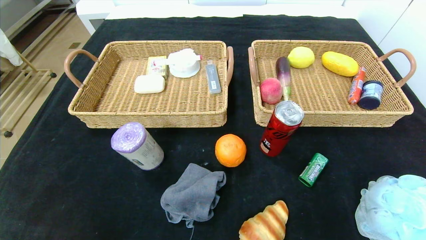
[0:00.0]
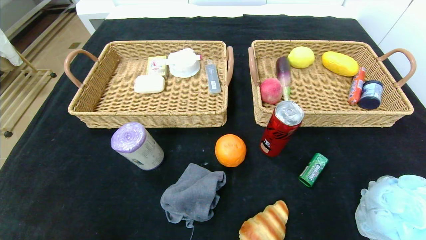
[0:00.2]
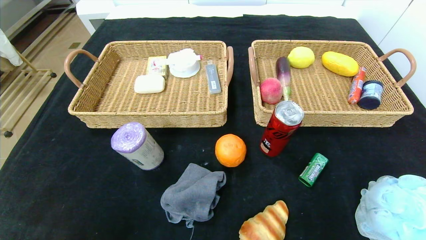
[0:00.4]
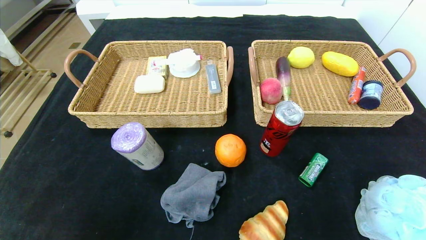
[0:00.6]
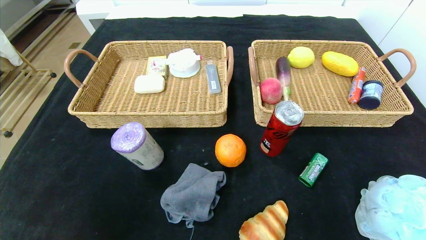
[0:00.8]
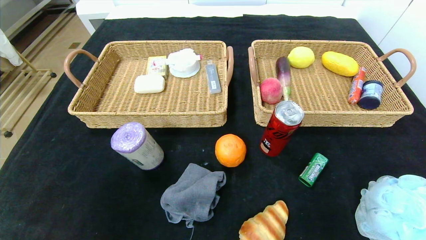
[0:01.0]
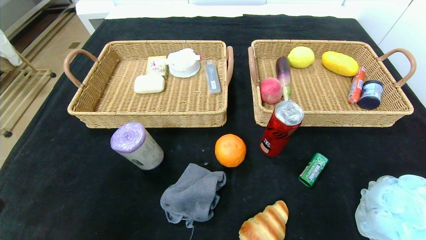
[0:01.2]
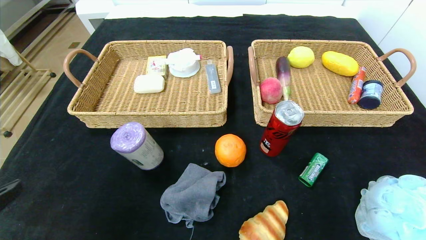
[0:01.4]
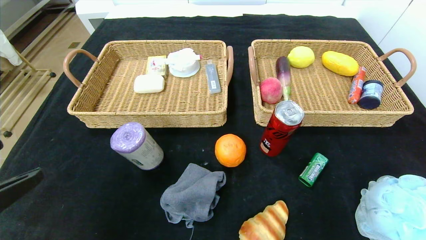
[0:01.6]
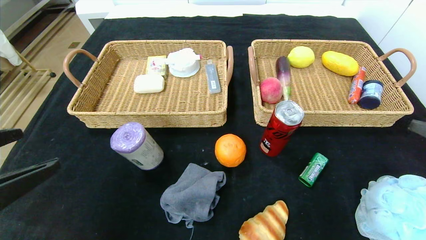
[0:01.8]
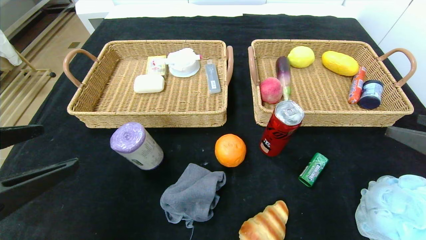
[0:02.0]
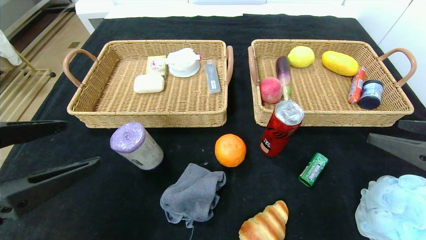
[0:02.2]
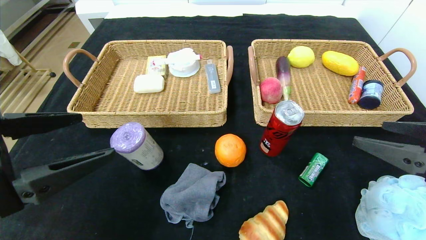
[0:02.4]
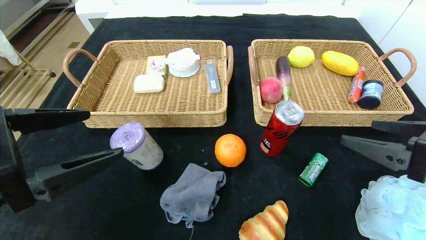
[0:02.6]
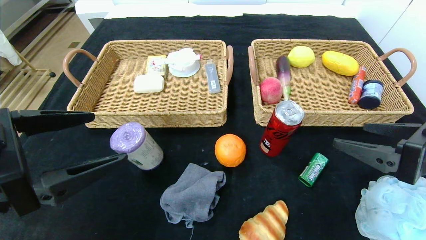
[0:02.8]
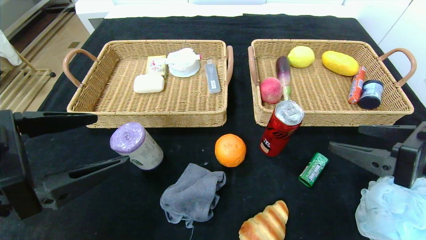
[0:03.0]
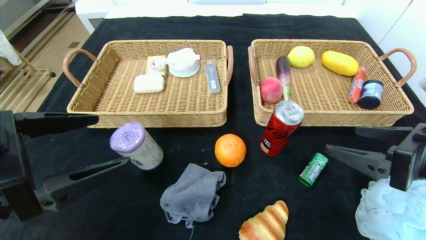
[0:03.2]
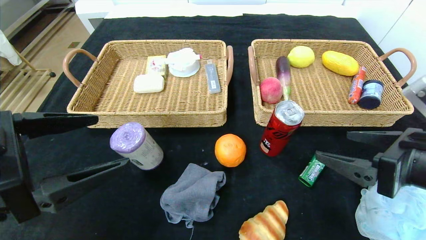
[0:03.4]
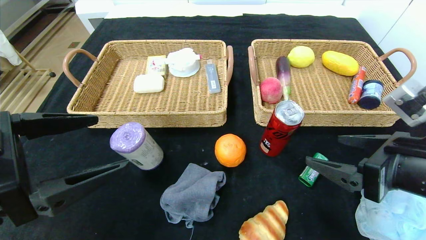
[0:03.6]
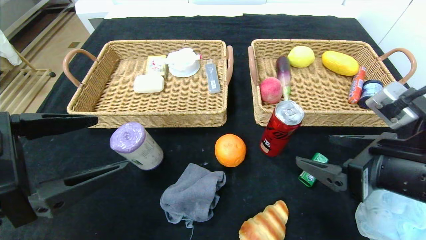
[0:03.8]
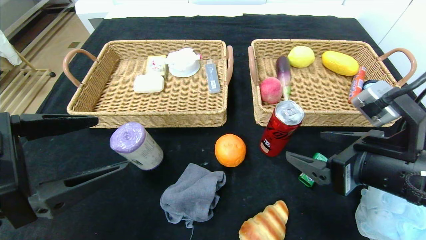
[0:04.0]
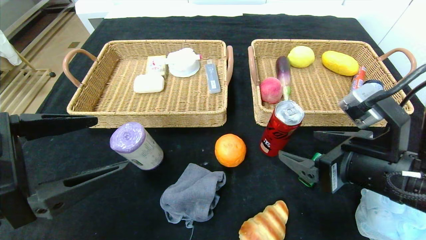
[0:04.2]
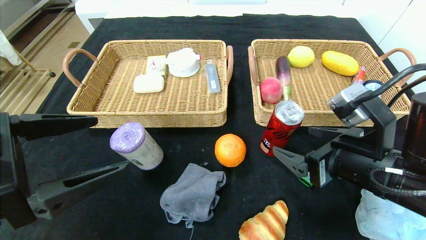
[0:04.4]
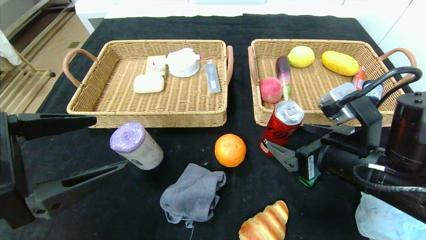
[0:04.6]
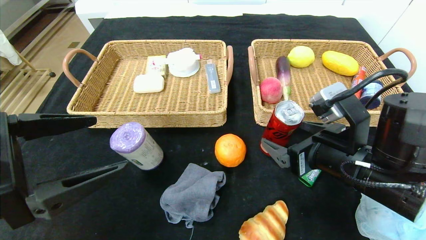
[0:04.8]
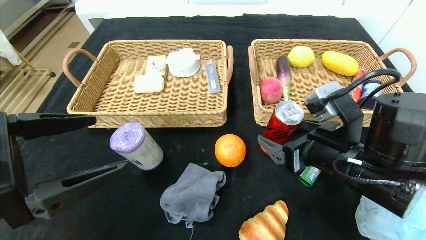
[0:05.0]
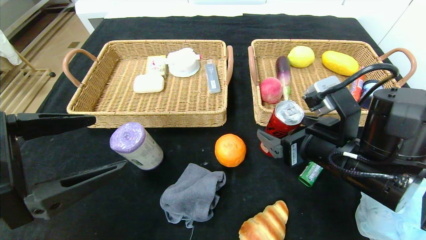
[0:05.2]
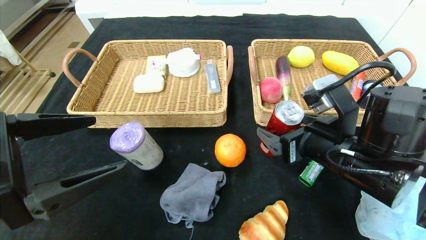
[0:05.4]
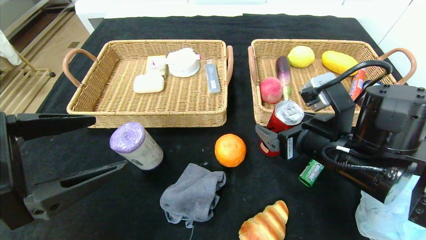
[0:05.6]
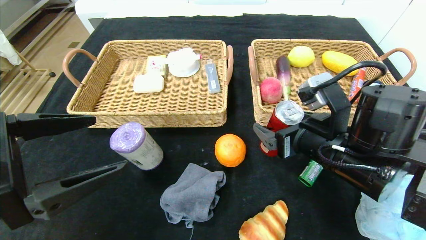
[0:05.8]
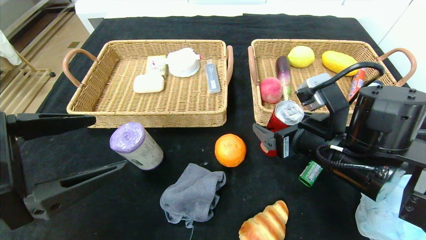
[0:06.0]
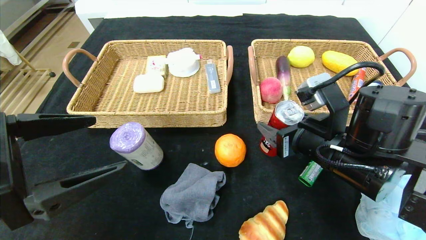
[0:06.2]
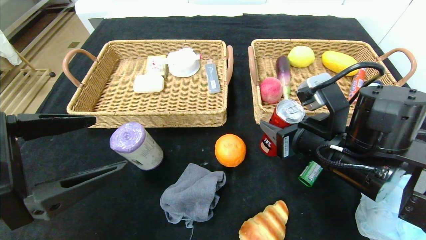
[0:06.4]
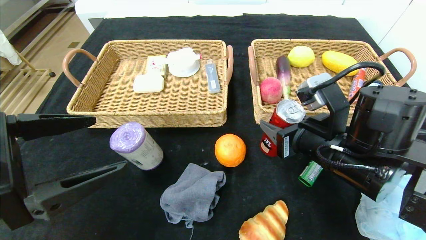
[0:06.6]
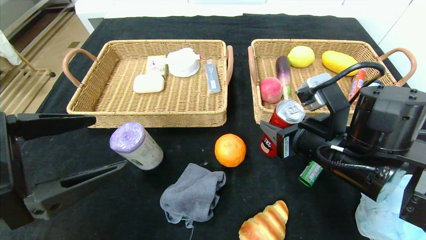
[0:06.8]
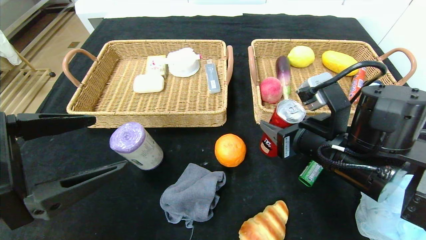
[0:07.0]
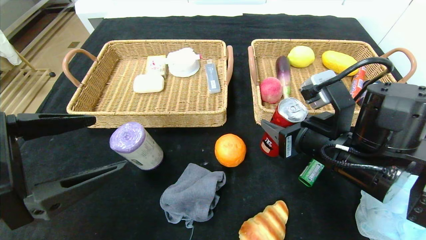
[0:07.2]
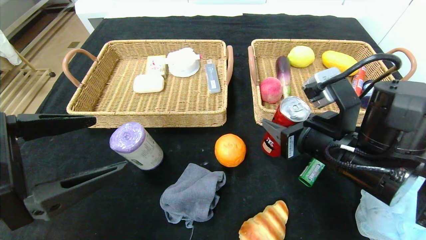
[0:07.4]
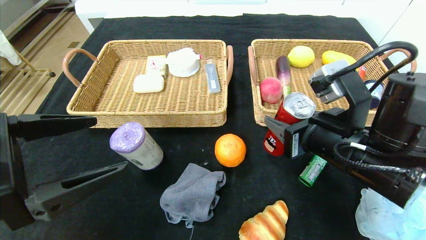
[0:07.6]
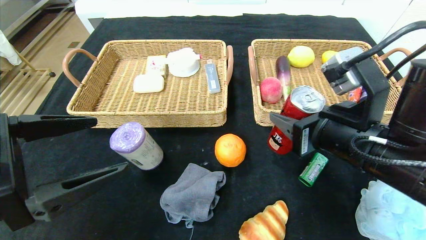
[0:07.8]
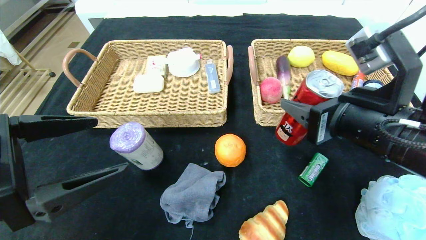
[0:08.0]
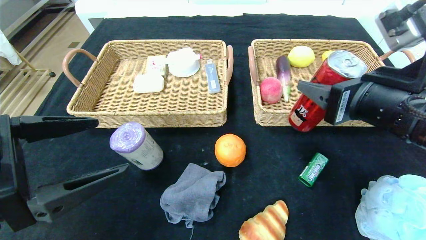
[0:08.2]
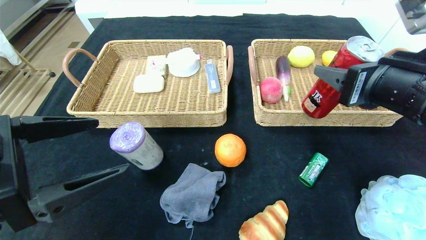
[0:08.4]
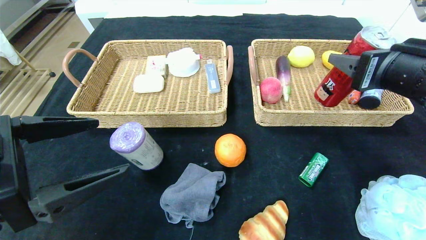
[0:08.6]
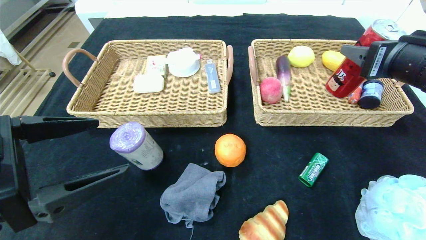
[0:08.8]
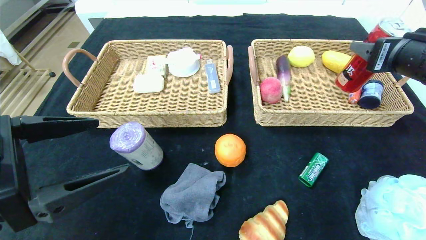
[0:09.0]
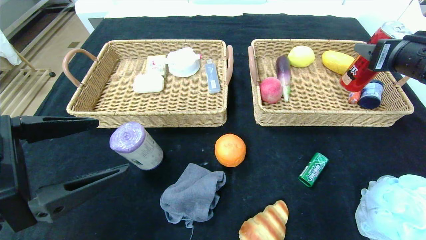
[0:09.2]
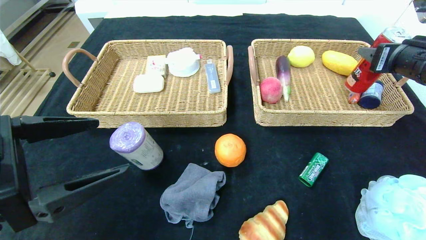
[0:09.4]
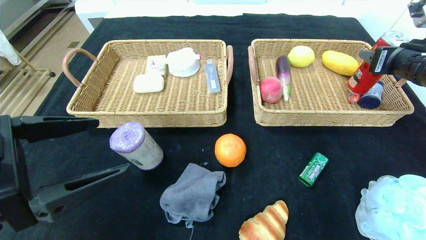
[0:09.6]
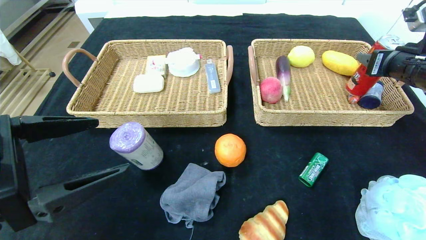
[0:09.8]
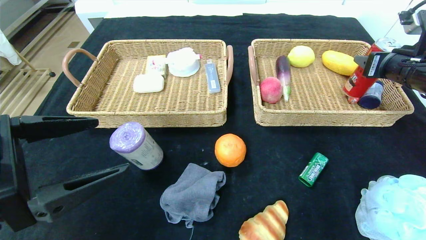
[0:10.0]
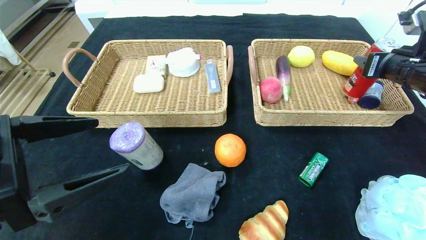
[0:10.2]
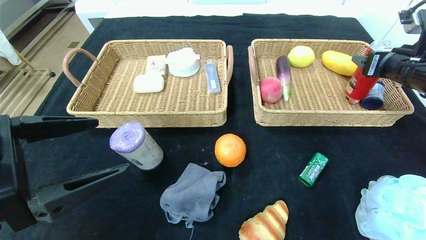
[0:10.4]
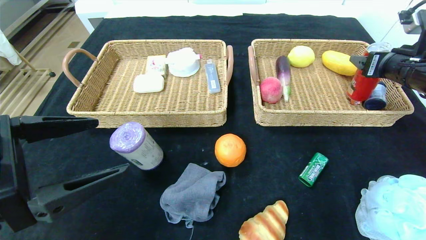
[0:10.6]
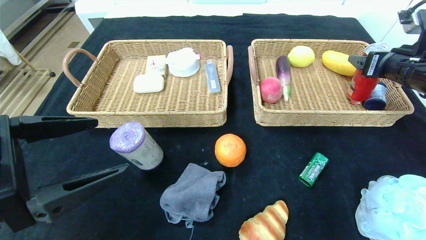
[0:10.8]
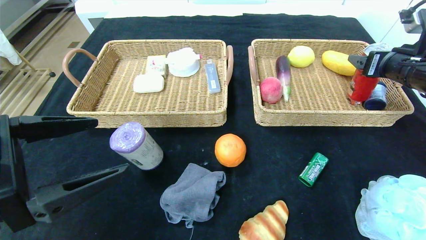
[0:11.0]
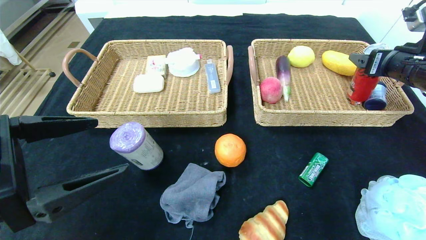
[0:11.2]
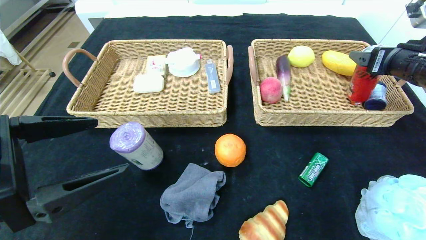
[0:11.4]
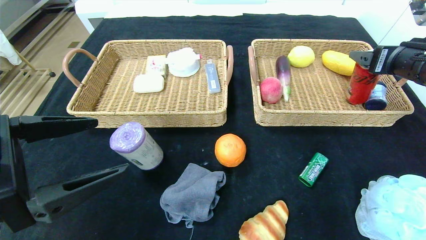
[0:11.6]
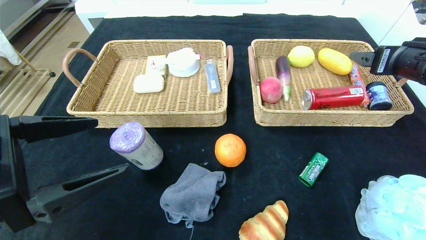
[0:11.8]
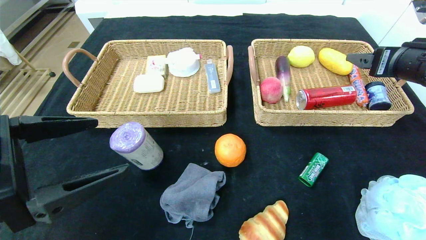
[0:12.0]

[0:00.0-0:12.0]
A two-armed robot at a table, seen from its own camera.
Step, 0:00.0 to 0:11.8: Grasp the canned cola and put it in the right basket.
0:00.0 to 0:01.6: The right gripper moves upward and forward, about 25 cm. Meanwhile the left gripper goes about 20 cm upward.
0:01.6 to 0:03.0: The left gripper moves forward, approximately 5 cm, while the right gripper goes about 10 cm forward and to the left.
0:03.0 to 0:04.4: The right gripper shifts approximately 10 cm to the left.
0:04.4 to 0:06.0: The right gripper ends up about 5 cm from where it was.
0:06.0 to 0:07.6: The right gripper closes.
0:07.6 to 0:09.0: The right gripper is displaced to the right, upward and forward by roughly 15 cm.
0:09.0 to 0:10.4: The right gripper goes some 10 cm forward and to the right.
0:10.4 to 0:12.0: The right gripper moves some 5 cm, and opens.

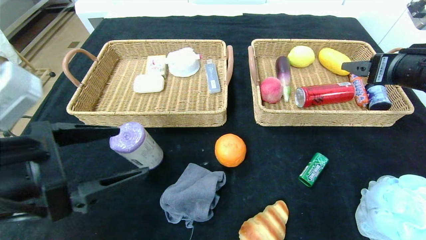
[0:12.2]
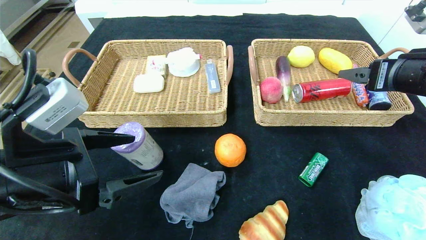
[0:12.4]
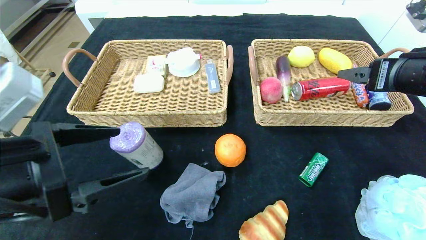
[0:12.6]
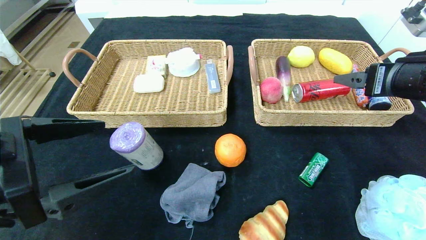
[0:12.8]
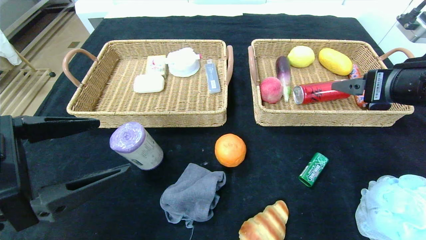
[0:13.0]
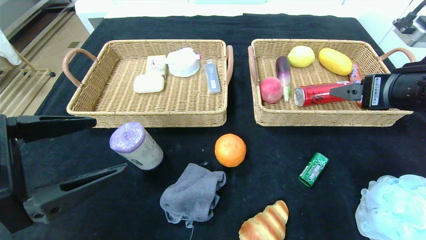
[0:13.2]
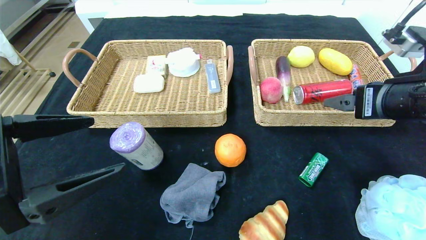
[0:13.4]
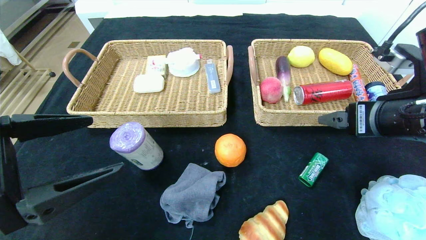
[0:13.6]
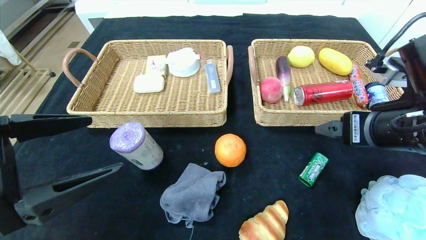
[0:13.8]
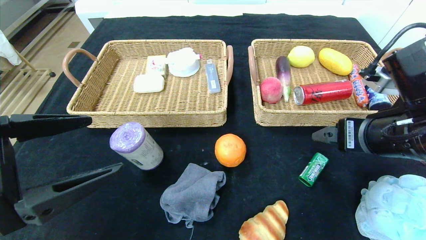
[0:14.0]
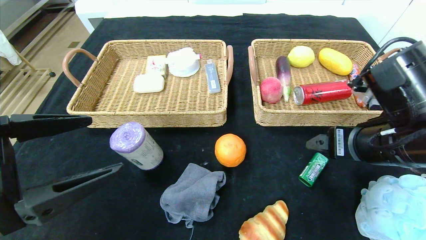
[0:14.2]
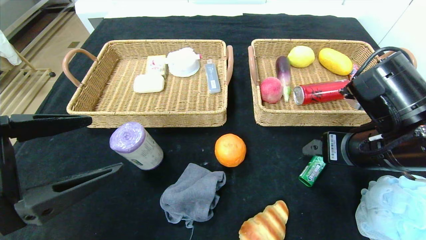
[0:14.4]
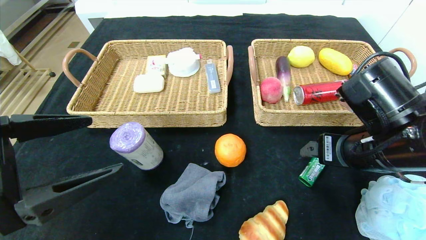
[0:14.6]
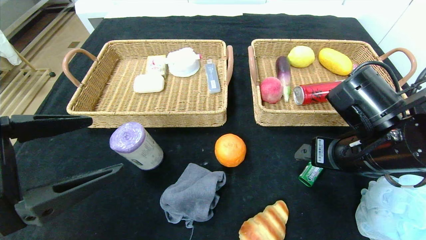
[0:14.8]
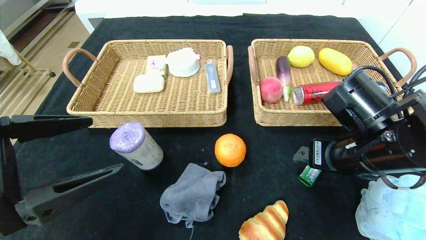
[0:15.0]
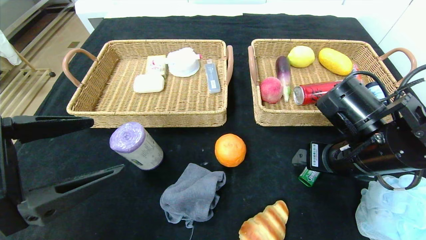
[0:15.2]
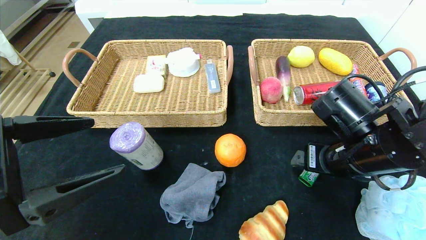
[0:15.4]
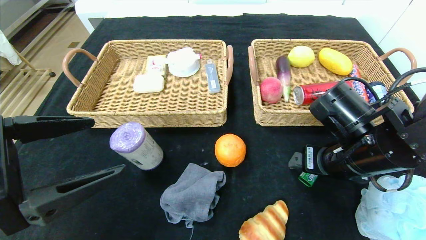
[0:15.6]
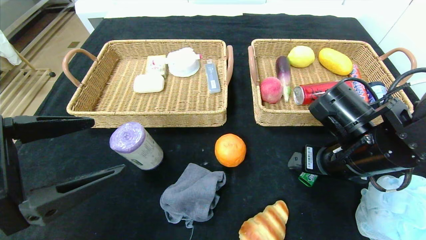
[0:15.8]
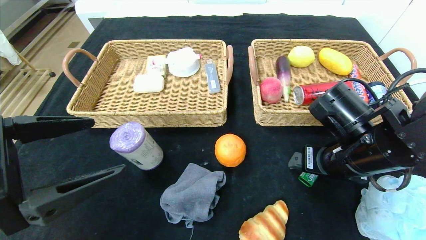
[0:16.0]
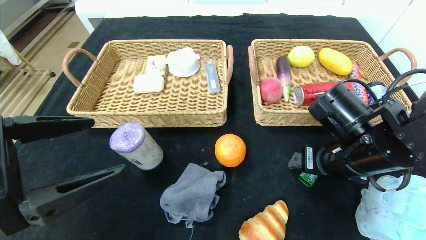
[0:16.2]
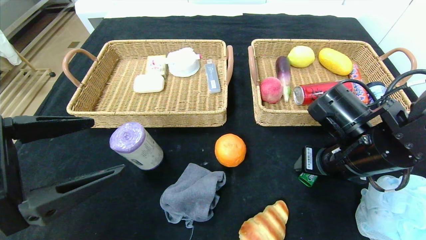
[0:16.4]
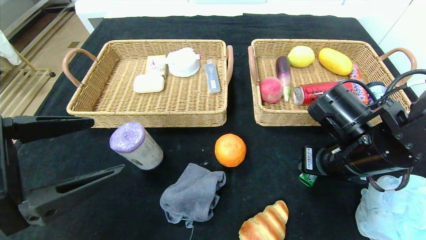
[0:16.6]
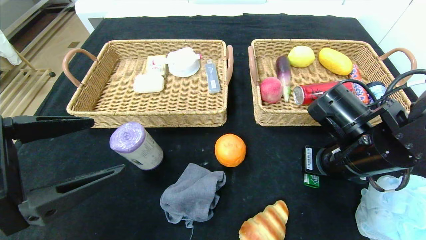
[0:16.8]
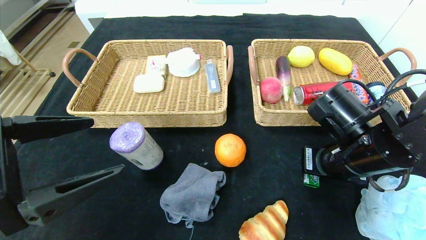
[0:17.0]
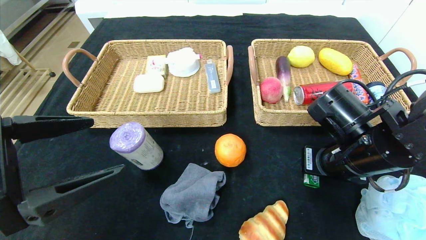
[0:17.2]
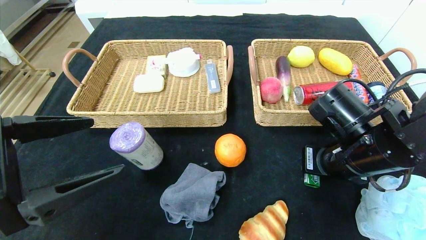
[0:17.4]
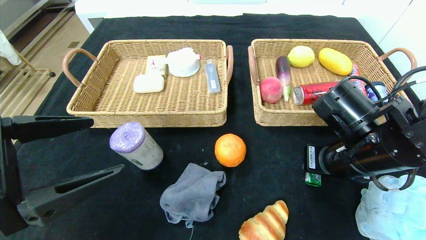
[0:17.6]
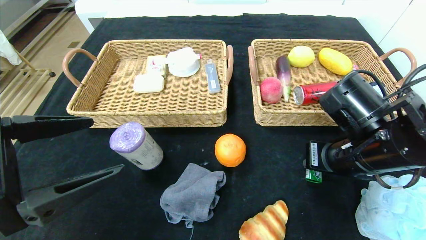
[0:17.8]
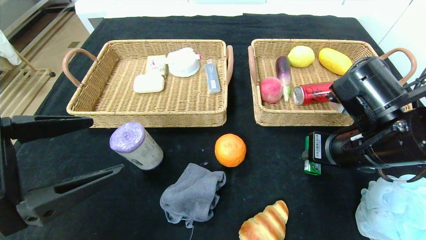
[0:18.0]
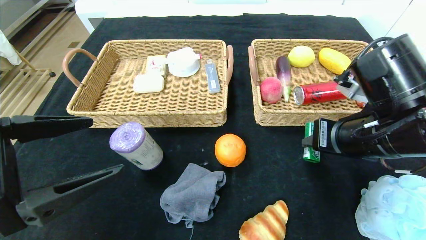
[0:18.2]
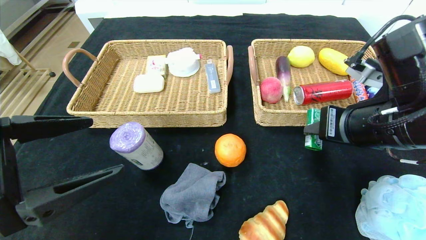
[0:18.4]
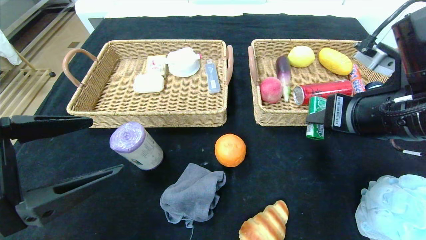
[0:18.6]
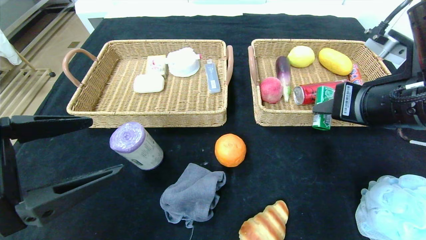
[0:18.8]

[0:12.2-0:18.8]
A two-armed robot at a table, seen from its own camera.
0:12.2 to 0:13.8: The right gripper goes about 10 cm to the left and backward.
0:13.8 to 0:15.4: The right gripper shifts roughly 5 cm downward.
0:15.4 to 0:17.2: The right gripper closes up.
0:17.2 to 0:18.8: The right gripper heads upward, covering about 10 cm.
